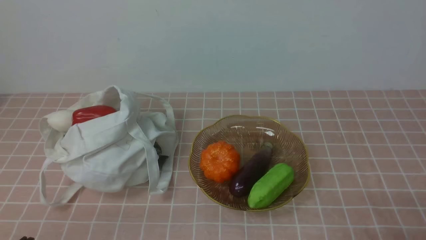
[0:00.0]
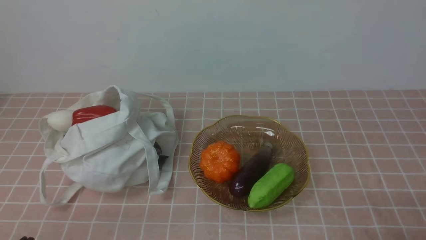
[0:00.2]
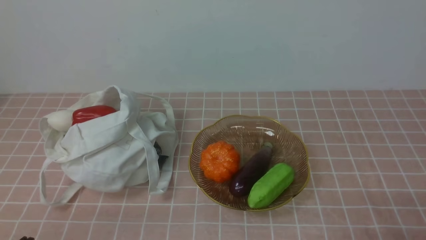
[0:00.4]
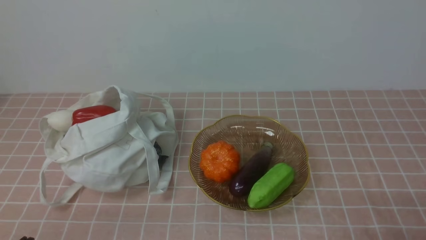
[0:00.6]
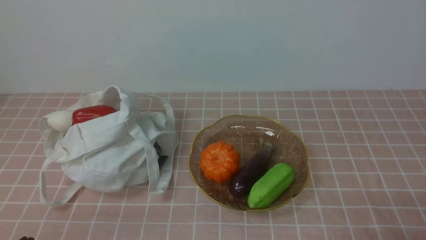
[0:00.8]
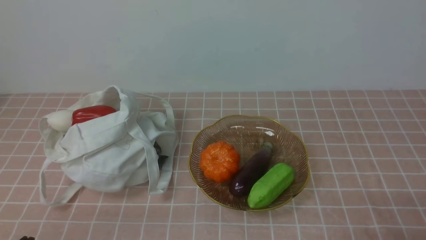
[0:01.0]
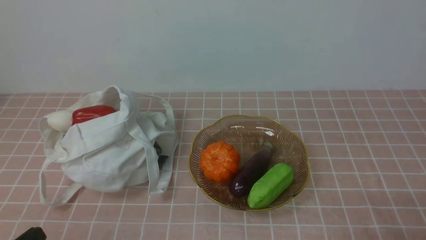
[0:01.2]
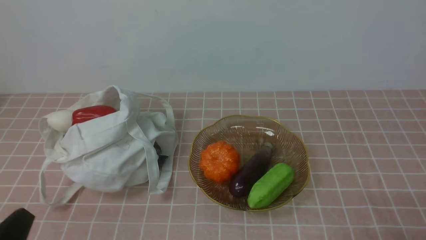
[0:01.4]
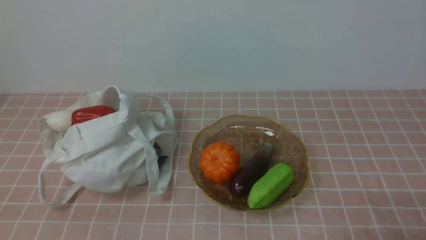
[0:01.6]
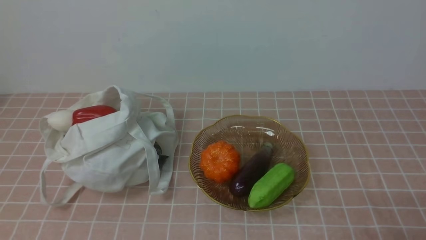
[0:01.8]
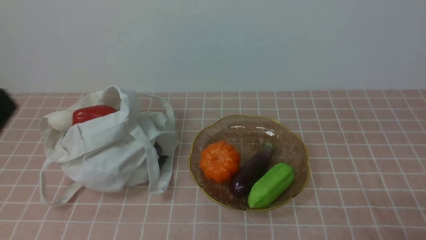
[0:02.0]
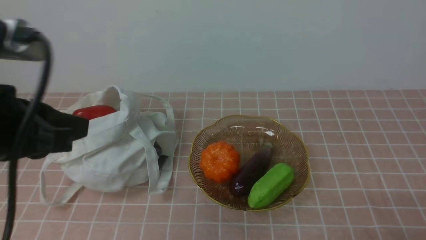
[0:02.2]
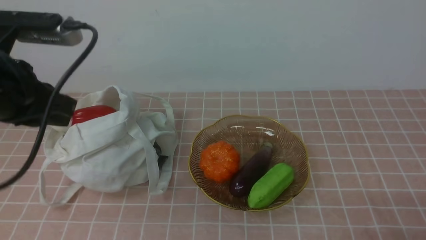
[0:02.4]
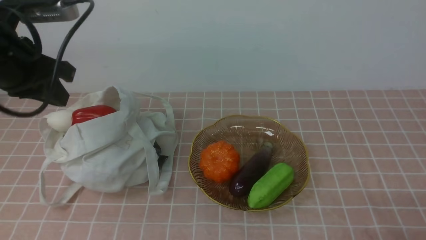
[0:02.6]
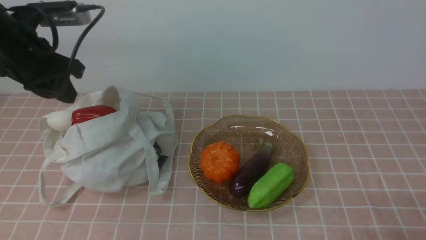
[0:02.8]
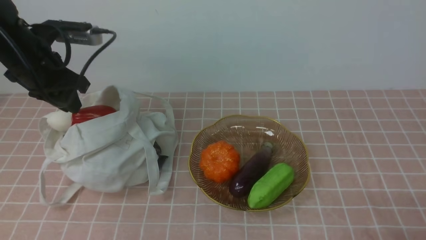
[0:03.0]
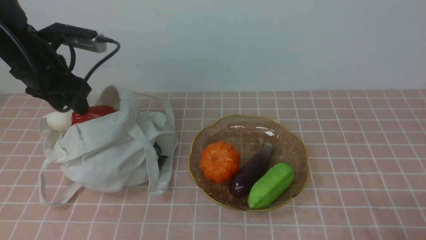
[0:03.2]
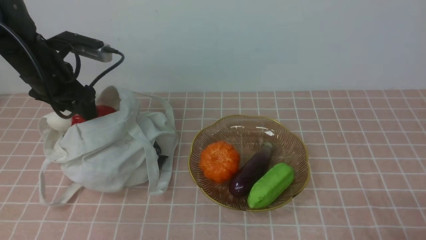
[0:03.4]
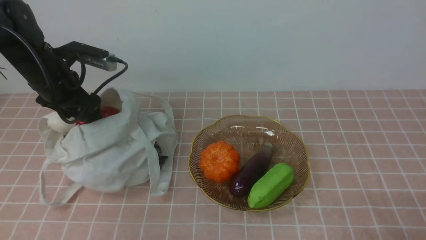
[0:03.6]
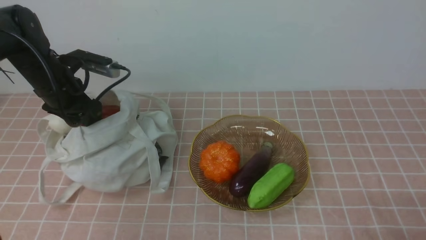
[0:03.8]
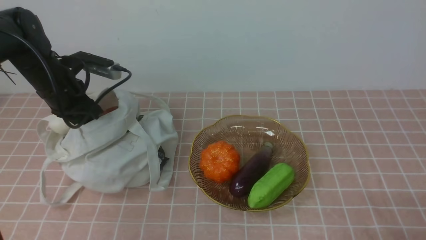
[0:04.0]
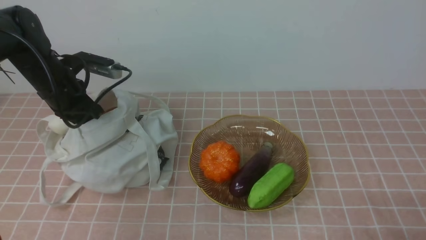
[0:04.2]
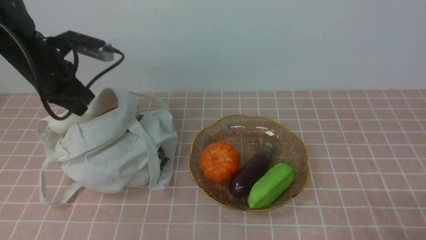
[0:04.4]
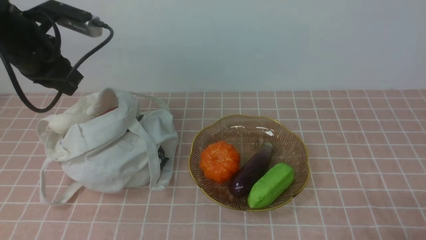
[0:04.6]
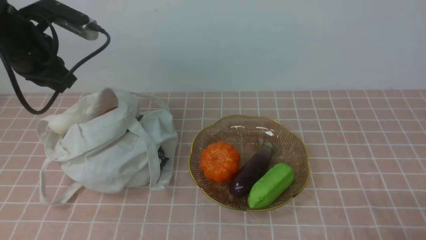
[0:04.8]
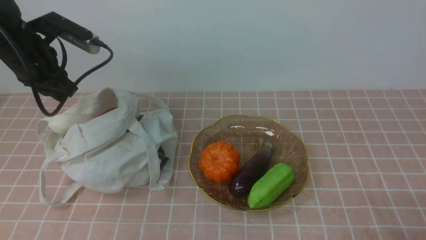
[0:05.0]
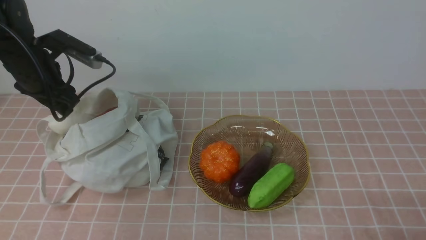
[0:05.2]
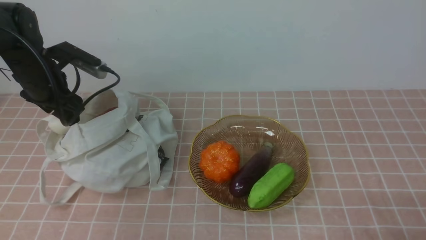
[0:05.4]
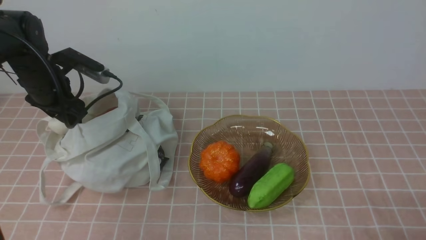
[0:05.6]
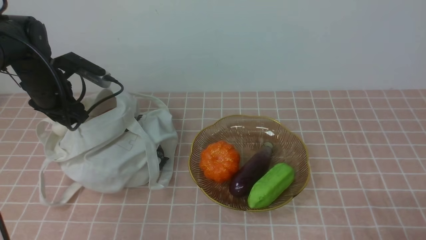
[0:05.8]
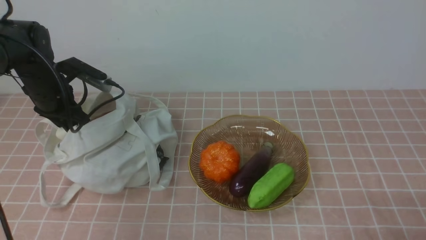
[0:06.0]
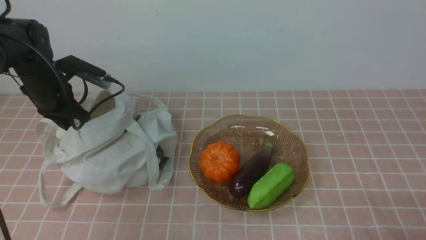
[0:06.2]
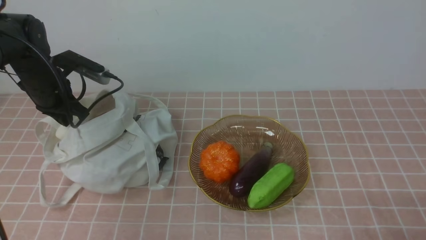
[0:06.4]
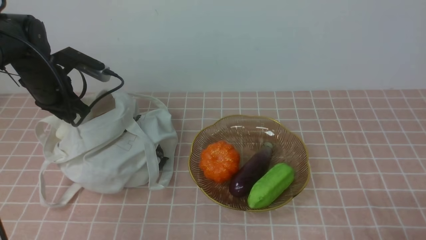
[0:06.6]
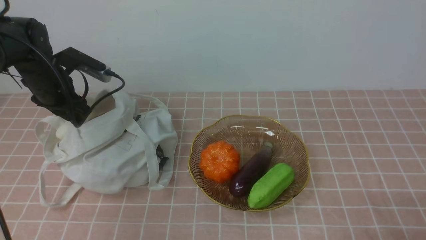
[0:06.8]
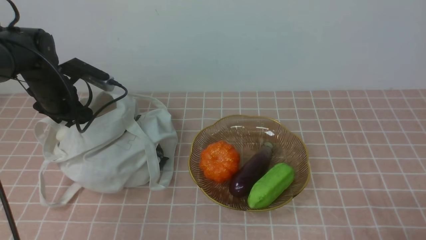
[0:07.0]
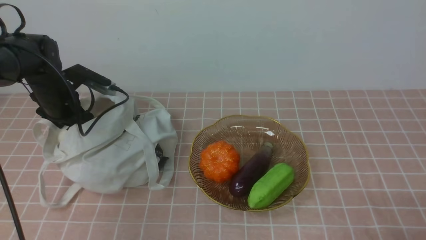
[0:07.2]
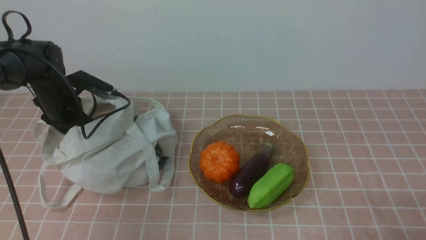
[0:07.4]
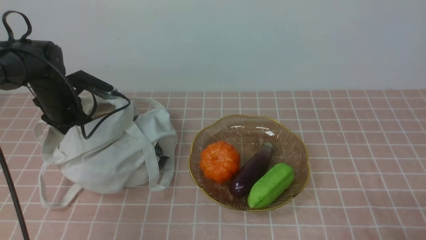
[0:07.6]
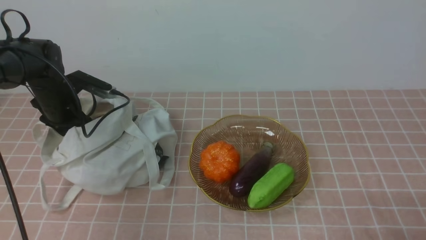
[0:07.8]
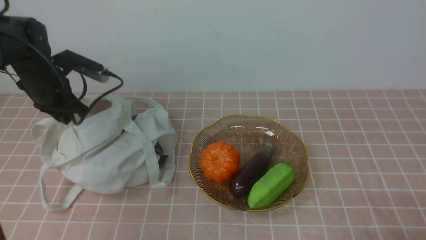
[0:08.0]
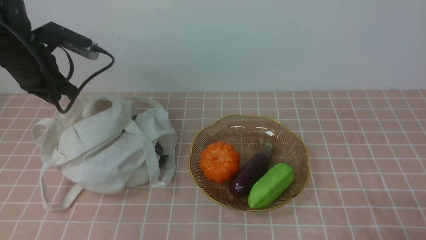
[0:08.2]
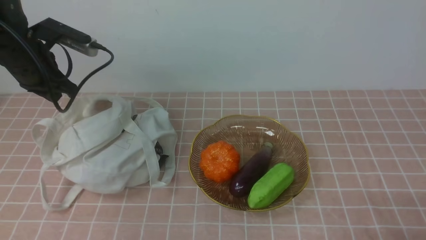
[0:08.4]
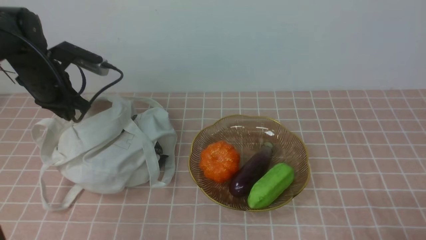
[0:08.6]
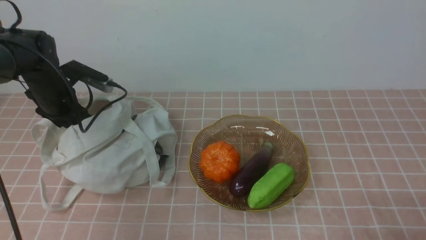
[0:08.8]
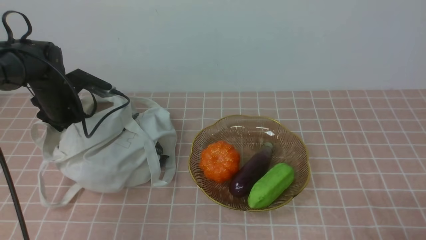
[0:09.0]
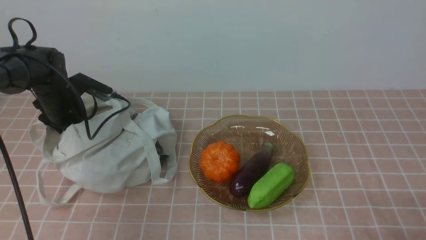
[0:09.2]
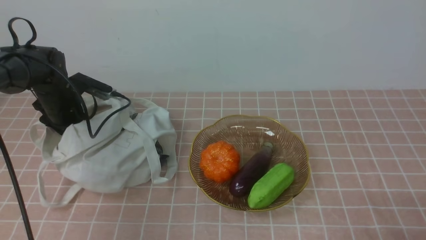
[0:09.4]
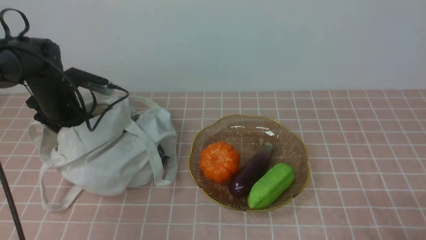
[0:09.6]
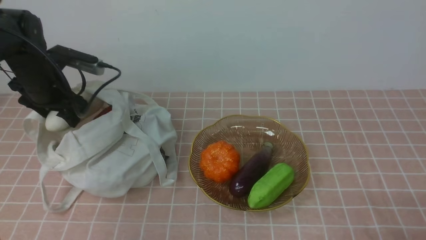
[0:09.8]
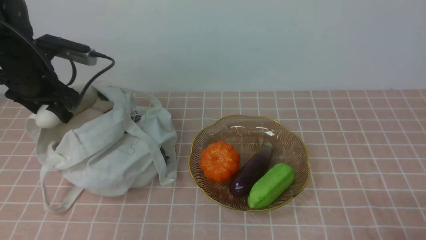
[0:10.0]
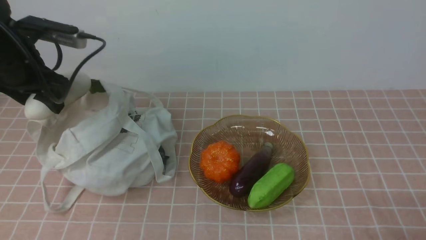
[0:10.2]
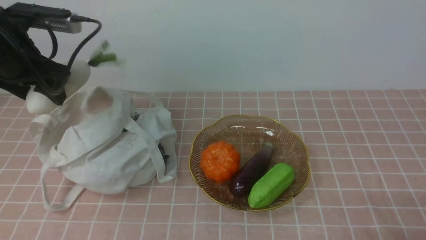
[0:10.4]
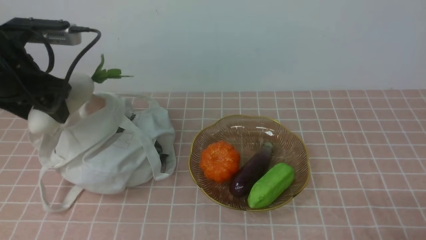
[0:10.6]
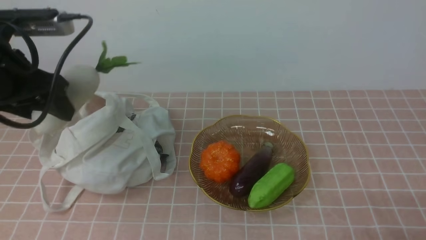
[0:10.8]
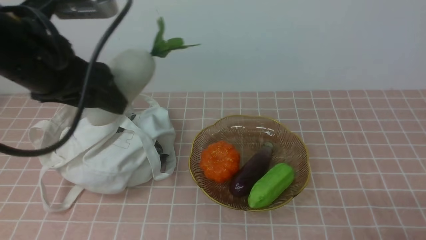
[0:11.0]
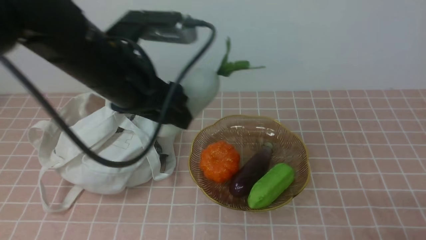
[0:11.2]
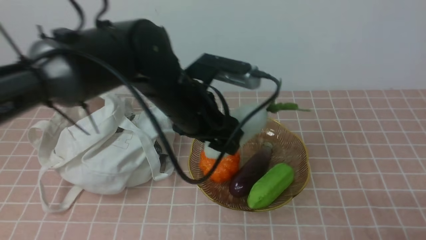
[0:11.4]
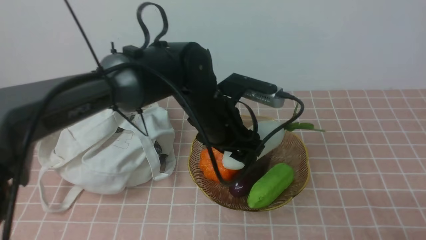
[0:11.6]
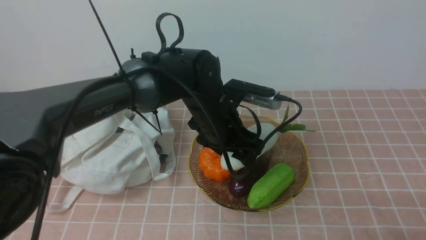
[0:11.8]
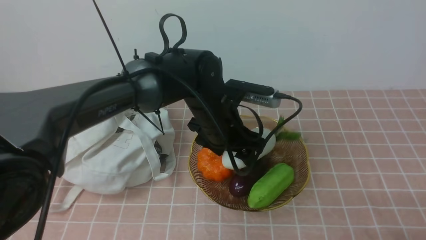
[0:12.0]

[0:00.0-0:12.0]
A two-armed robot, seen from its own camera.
Task of the whole recording: take vegetables from bag on pink coffee tablecloth place on plate.
Step, 0:00.0 to 0:09.2: Grasp the radish with left gripper.
0:01.6 to 0:03.0: The left gripper is displaced forward by some 35 cm, and opens up.
0:03.0 to 0:04.4: The left gripper closes.
0:04.4 to 0:06.0: The left gripper moves downward, about 5 cm, and opens and closes again.
0:06.0 to 0:07.6: The grippers move only a little.
0:07.6 to 0:09.0: The left gripper goes upward and returns, approximately 10 cm each way, and closes, then reopens.
0:09.0 to 0:10.4: The left gripper moves upward and backward, about 20 cm.
0:10.4 to 0:12.0: The left gripper moves to the right, about 30 cm.

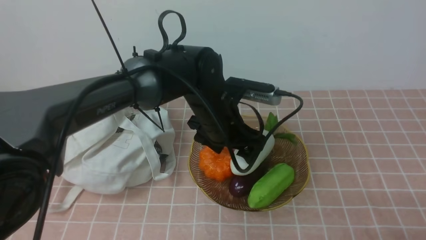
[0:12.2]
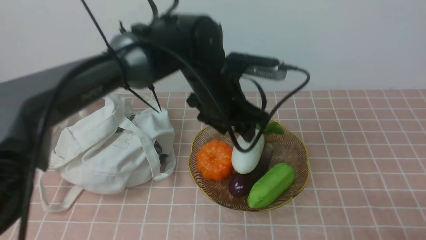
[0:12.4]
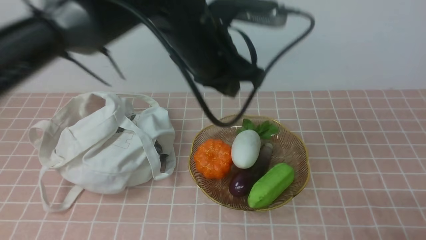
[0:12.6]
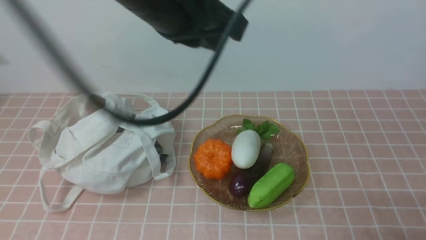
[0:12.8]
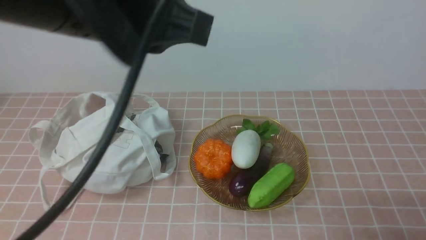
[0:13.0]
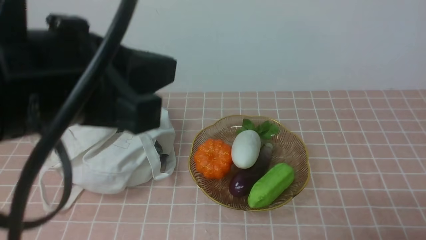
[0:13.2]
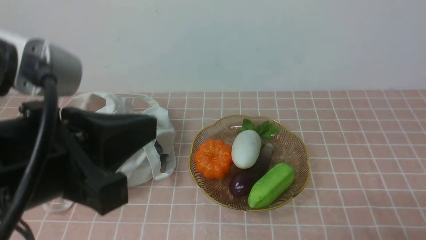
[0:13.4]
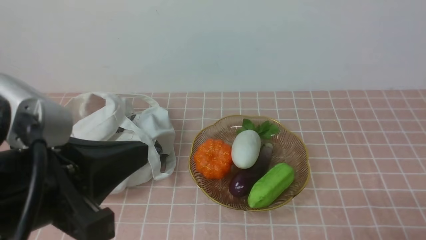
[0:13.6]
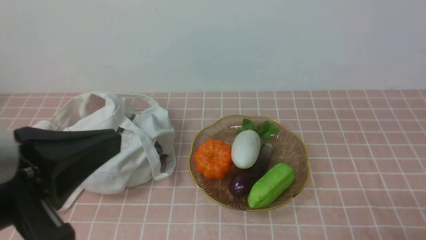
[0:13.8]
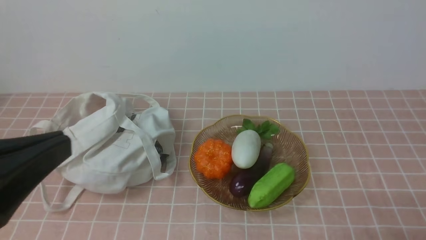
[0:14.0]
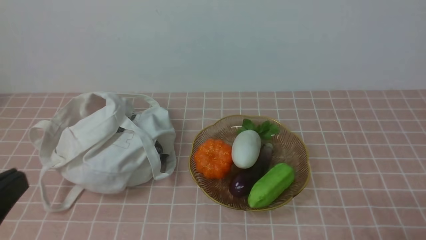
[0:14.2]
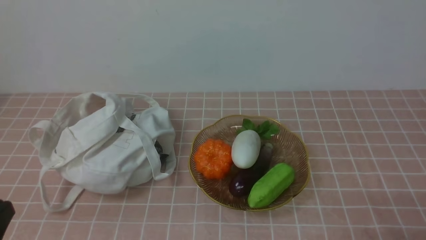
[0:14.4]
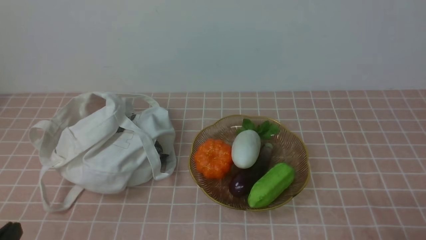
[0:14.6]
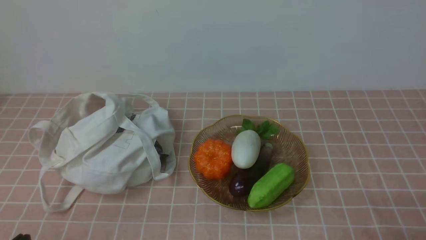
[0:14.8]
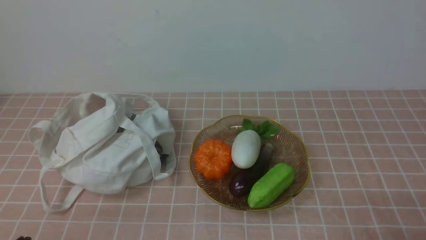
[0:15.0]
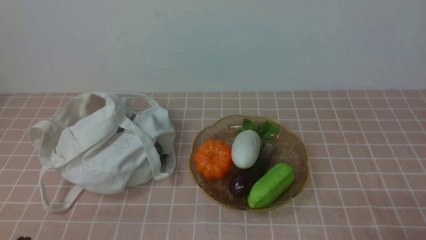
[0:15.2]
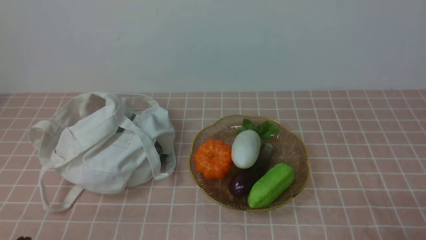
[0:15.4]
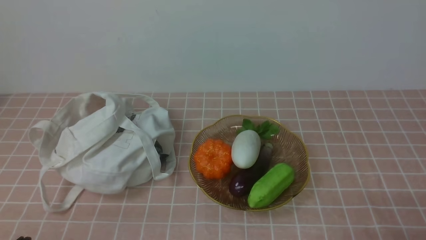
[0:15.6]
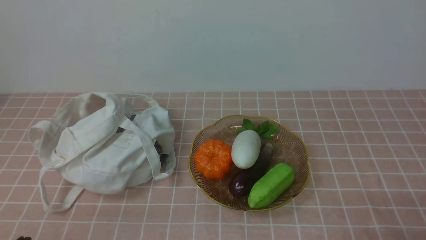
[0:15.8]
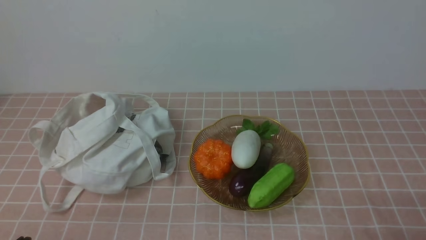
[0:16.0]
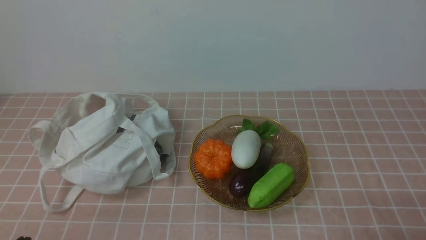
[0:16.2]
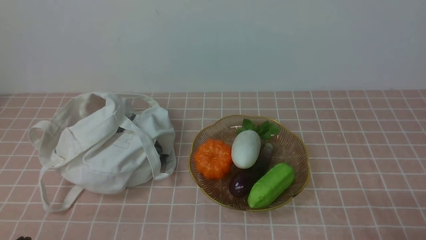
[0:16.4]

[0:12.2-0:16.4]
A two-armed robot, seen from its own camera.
Task of the whole recording: take vegetables from bag on pink coffee tablecloth place on plate.
0:12.2 to 0:13.6: The left gripper travels backward, to the left and upward by some 35 cm, and closes.
0:13.6 to 0:15.0: The left gripper shifts about 20 cm downward and to the left.
0:15.0 to 0:16.4: Neither gripper changes place.
